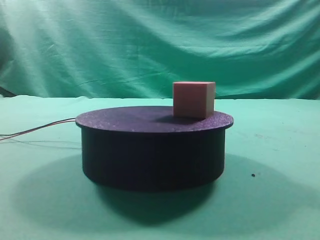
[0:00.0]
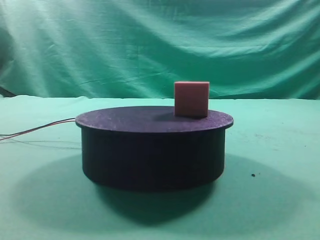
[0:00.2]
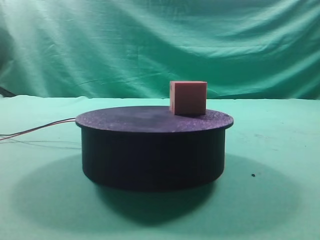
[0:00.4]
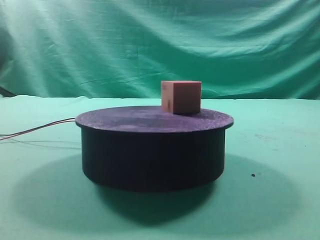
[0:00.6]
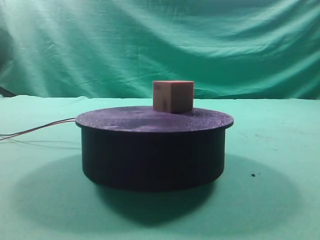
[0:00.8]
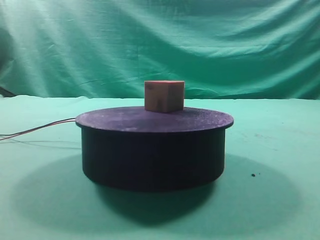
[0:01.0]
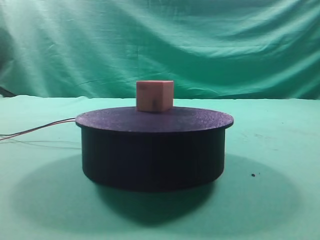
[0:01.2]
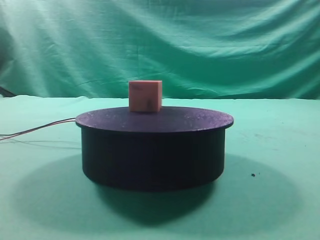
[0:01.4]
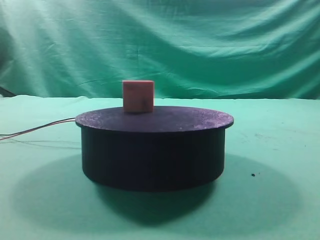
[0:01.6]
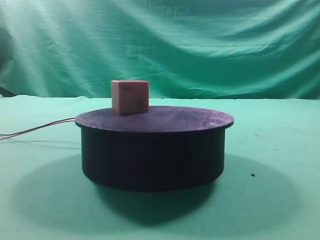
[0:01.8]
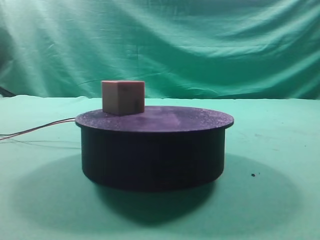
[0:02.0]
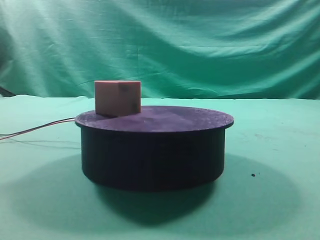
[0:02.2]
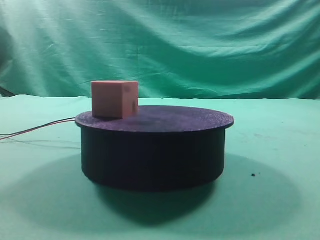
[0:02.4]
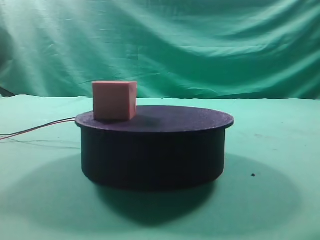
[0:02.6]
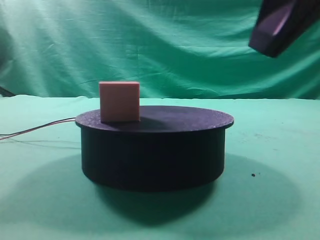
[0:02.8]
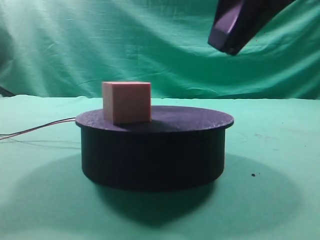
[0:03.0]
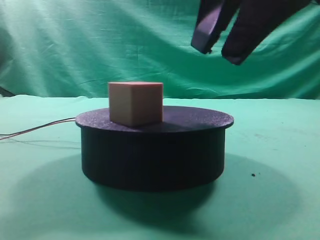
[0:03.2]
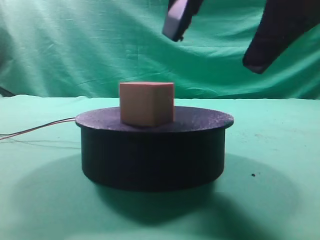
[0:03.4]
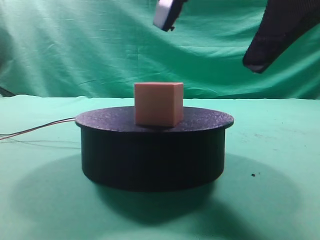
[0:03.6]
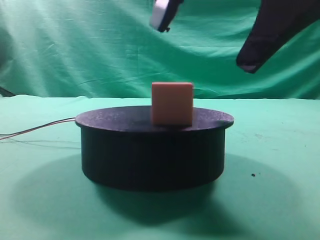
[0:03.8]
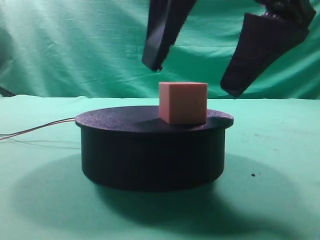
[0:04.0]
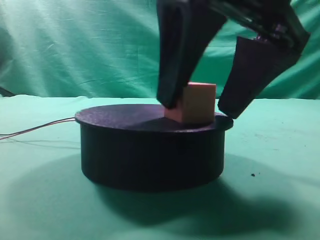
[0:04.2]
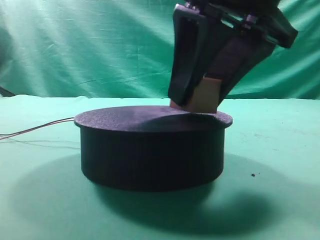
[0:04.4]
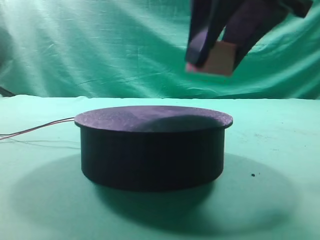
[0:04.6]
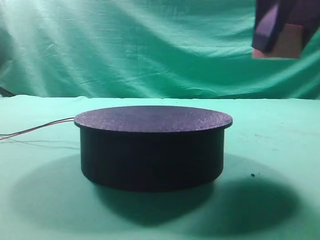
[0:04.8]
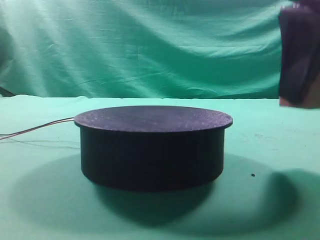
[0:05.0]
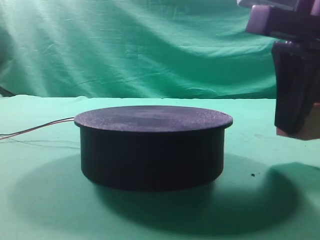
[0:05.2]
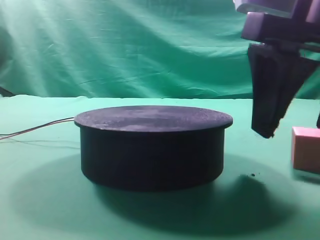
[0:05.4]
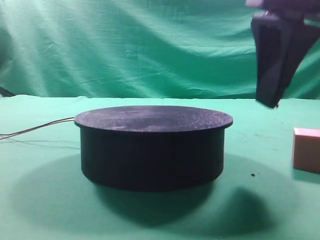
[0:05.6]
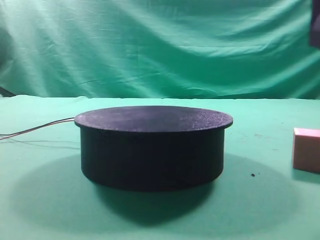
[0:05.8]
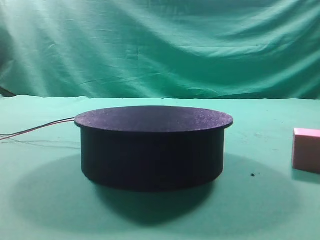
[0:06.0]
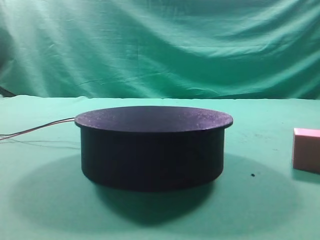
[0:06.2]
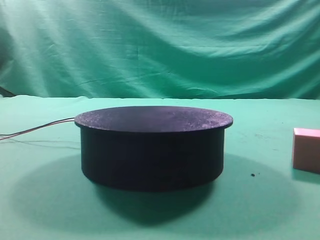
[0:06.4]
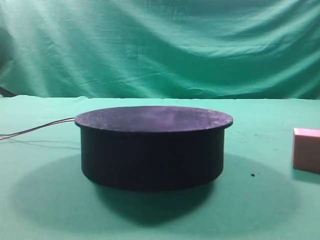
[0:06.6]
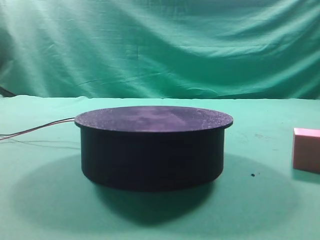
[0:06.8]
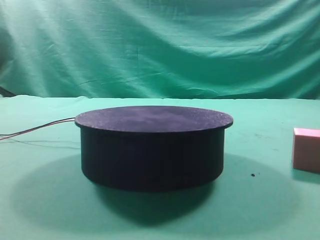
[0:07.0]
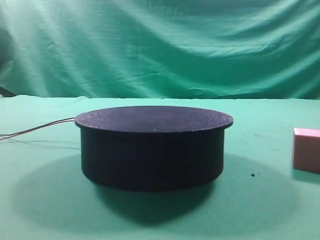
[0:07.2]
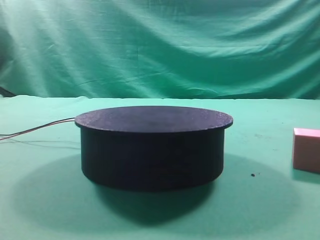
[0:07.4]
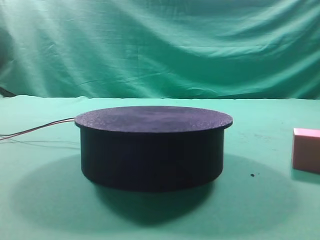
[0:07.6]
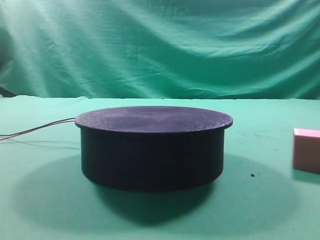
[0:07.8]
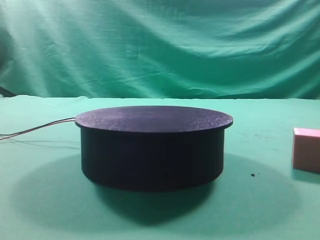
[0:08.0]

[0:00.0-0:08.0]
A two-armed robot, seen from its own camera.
Task of the whole recording: grasp the rotating cube-shaped block on the turntable and place it on the table.
Step, 0:00.0 to 0:04.4: Grasp the rotating cube-shaped block on the turntable.
Step, 0:04.6 to 0:05.6: Place the cube on the desk.

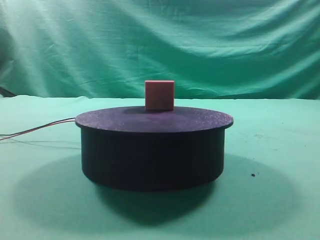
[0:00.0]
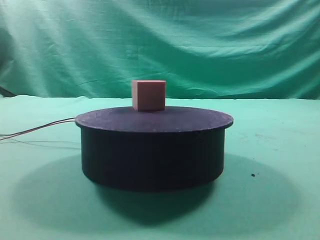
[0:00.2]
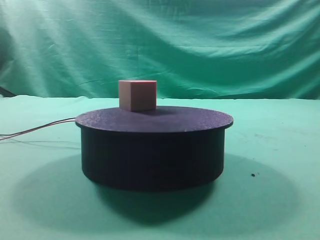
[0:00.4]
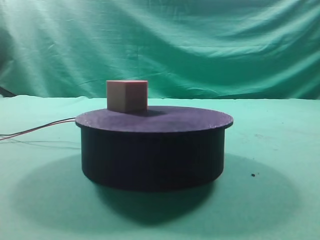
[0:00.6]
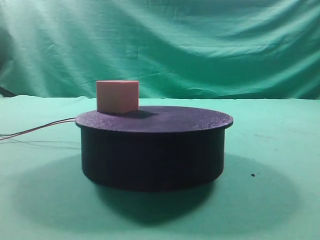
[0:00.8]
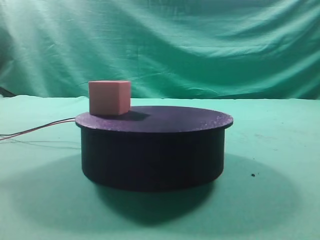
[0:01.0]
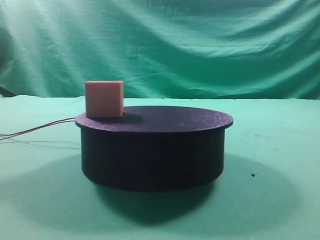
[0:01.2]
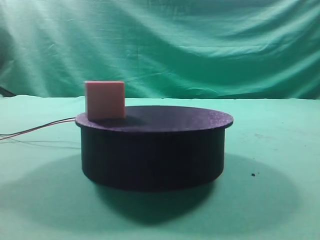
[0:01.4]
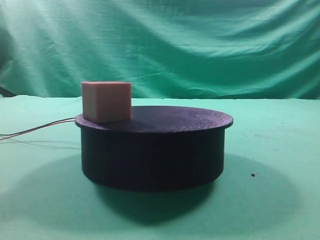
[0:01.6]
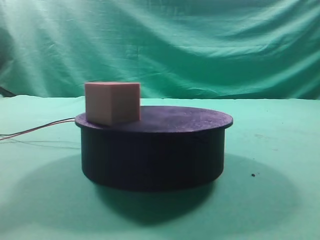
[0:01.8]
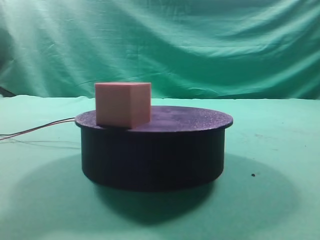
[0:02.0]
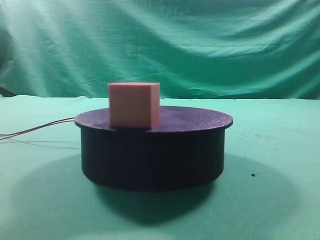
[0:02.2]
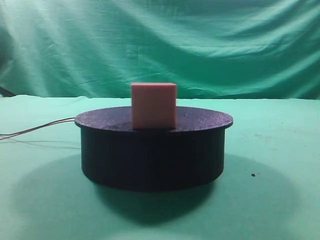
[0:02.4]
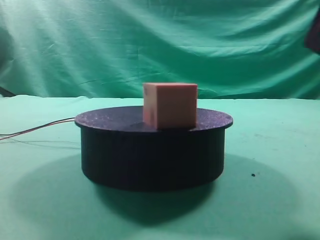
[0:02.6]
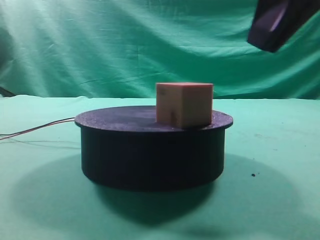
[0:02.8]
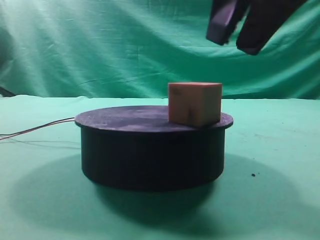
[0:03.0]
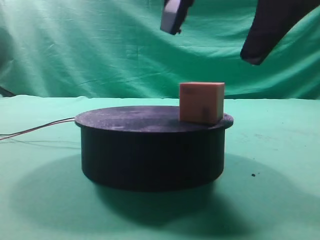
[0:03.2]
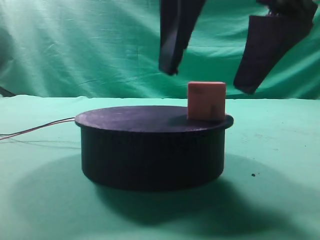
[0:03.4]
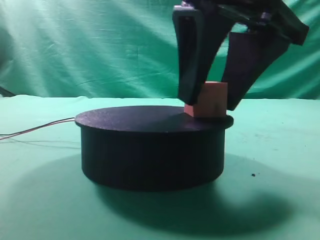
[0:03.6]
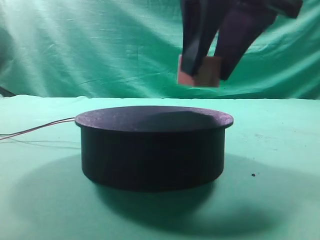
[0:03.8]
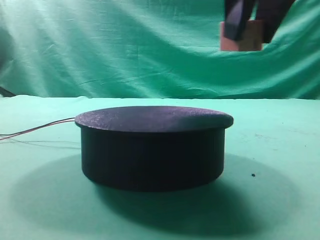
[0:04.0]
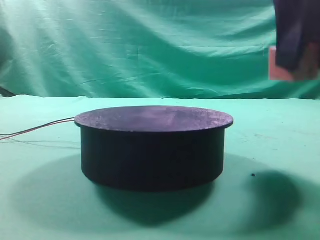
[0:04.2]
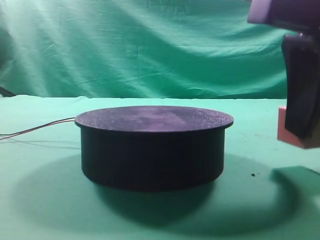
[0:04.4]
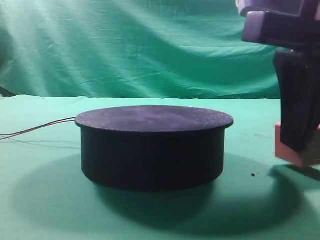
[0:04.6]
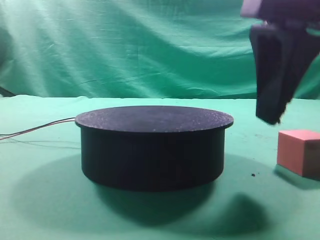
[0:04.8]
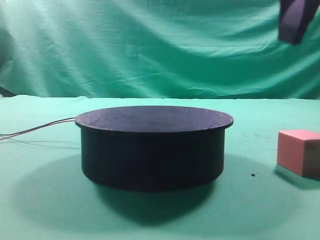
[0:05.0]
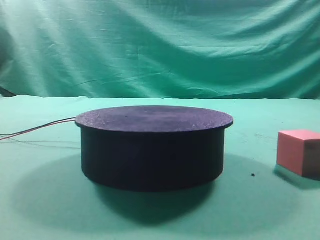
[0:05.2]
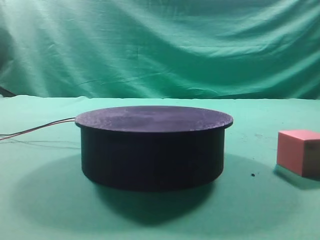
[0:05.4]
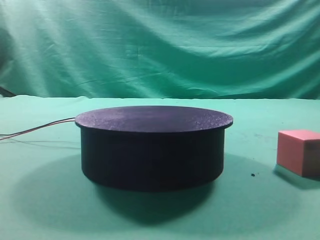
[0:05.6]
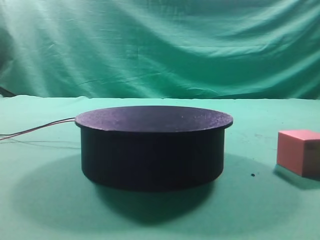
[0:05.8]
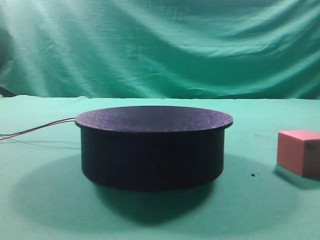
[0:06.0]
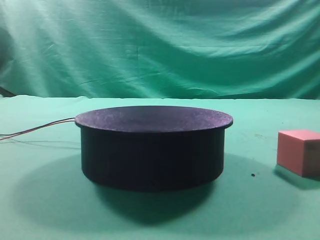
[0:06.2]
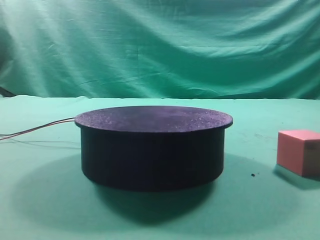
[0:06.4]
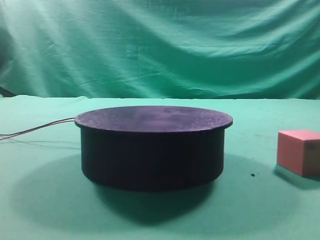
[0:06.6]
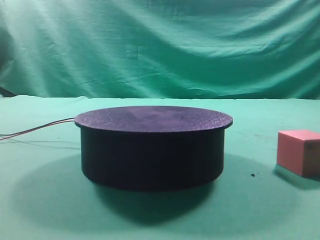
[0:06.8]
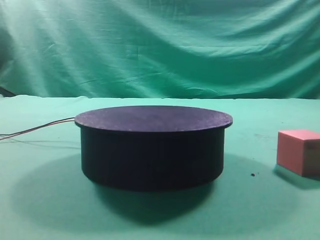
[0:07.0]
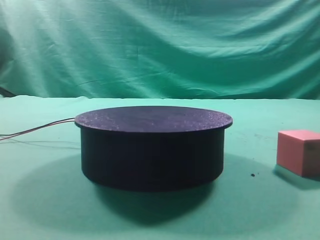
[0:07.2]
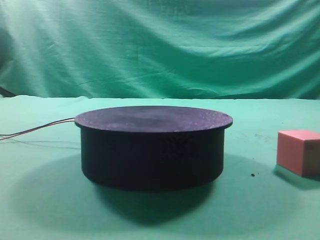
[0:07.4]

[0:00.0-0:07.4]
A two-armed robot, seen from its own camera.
Task of the whole recording: grasp the rotating cube-shaped block on the turntable and place it on the table.
Step, 0:00.0 to 0:03.8: Grasp the rotating cube-shaped block on the turntable.
Step, 0:04.0 to 0:04.8: Place the cube on the desk.
